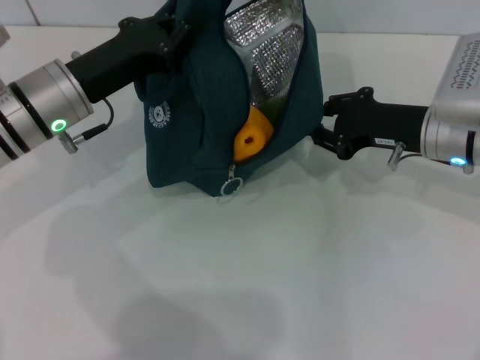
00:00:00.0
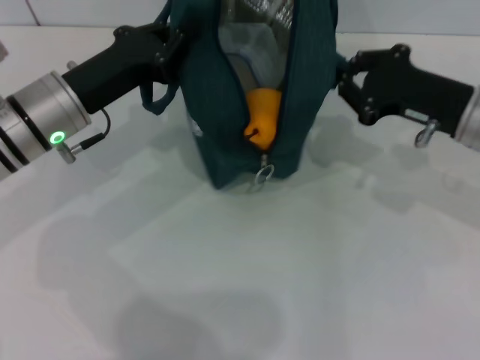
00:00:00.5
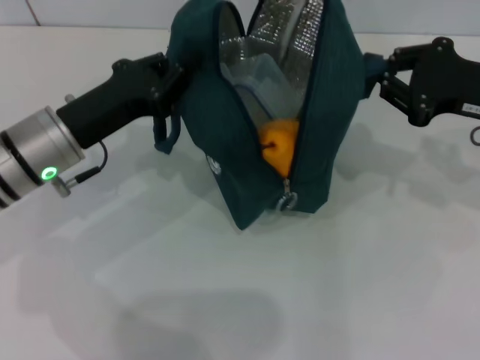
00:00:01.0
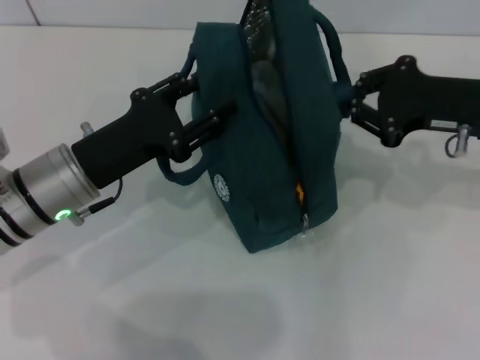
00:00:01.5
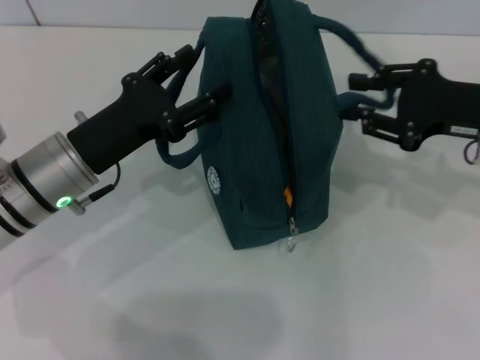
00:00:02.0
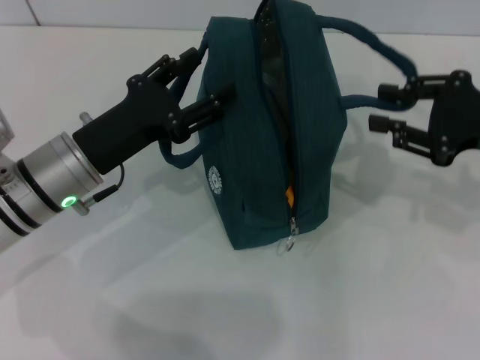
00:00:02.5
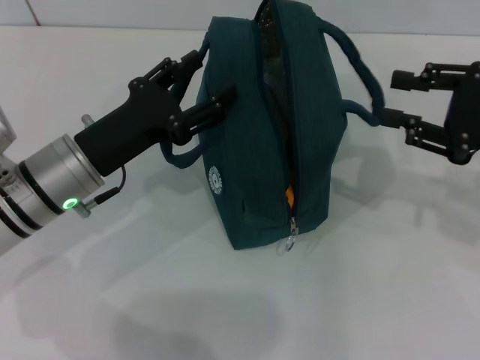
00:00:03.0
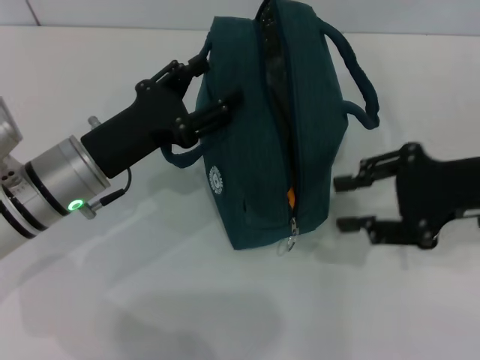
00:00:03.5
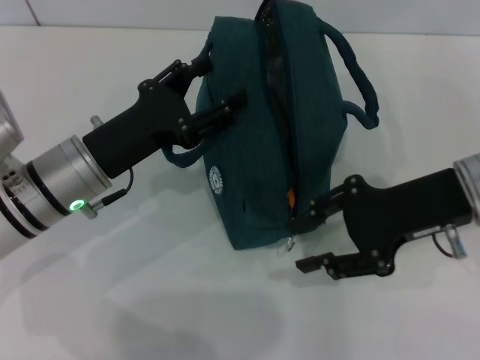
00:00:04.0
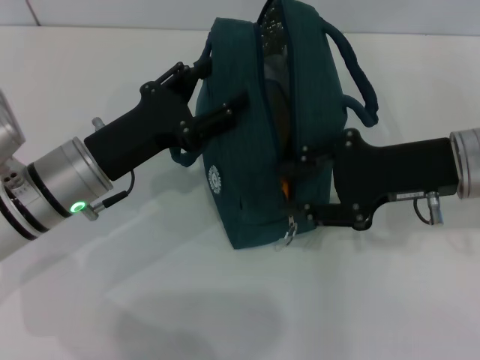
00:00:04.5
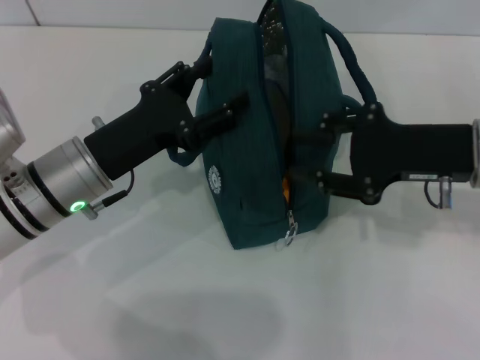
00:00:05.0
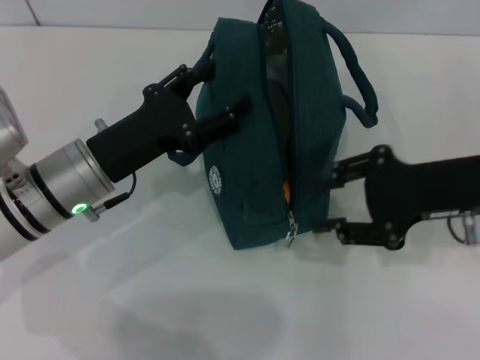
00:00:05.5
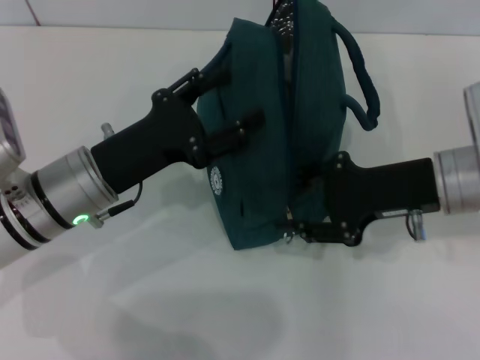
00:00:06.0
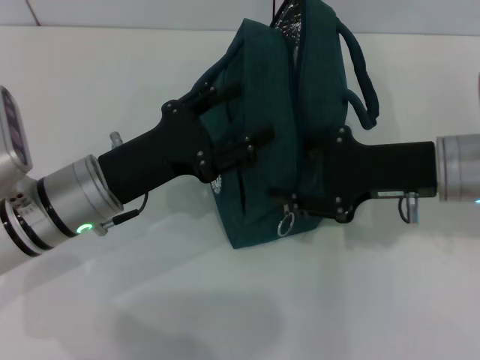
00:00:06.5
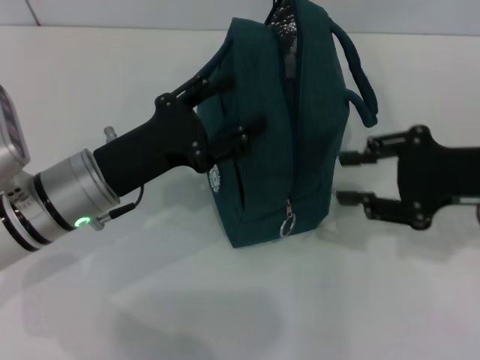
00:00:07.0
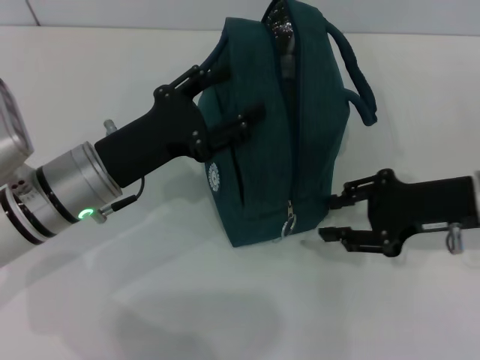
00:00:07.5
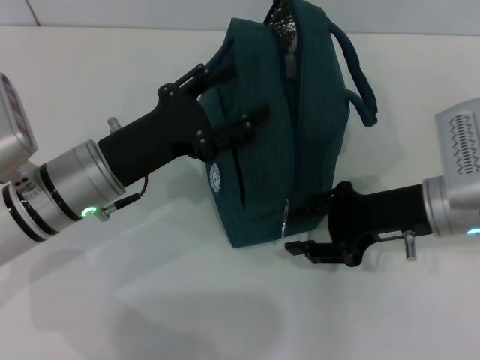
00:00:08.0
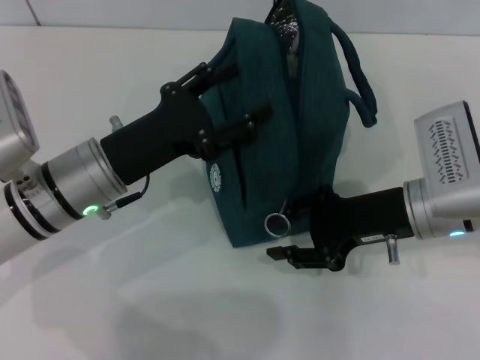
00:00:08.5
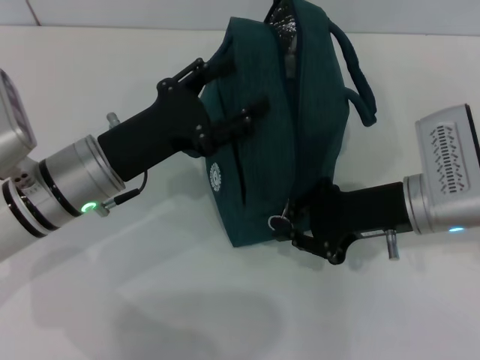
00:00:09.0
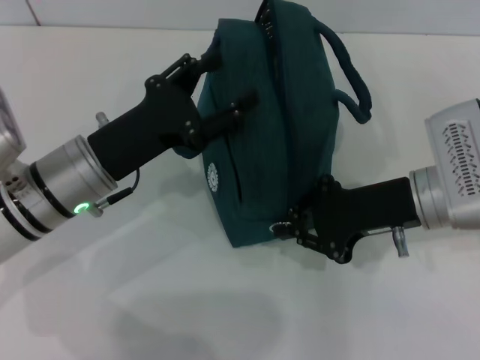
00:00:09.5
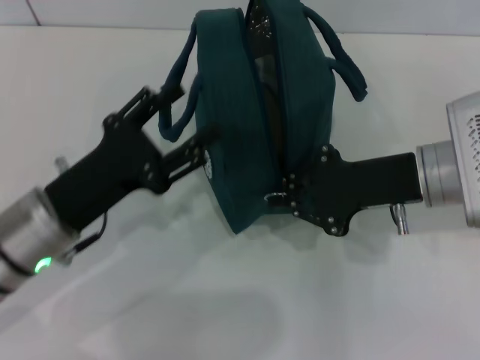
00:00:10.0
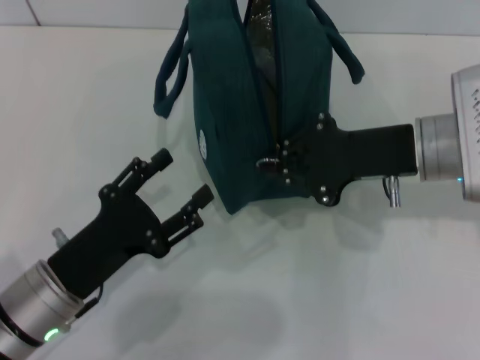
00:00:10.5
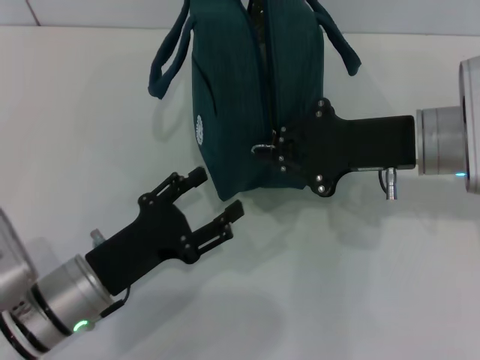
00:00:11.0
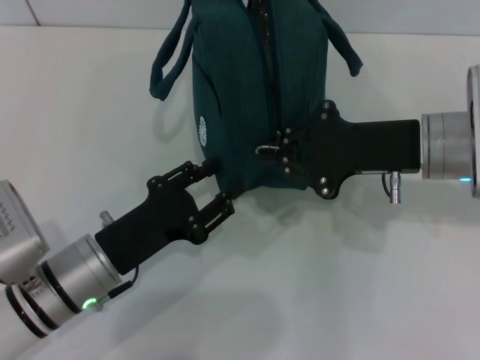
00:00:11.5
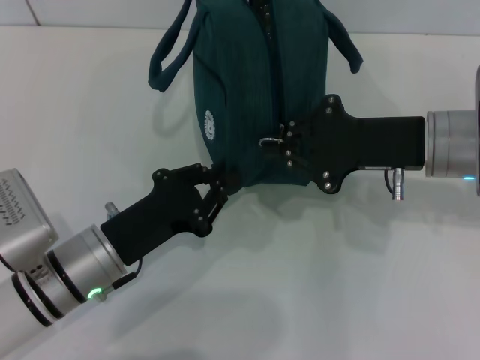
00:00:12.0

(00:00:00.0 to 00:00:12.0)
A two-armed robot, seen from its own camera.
Step, 00:00:00.0 - 00:00:02.0: Hold the lunch bag with your left hand.
00:00:00.0 - 00:00:02.0: The left gripper heads backward, covering roughly 5 cm, and opens; the right gripper travels to the right by approximately 5 cm.
00:00:02.0 - 00:00:04.0: The right gripper travels to the left by about 5 cm.
00:00:08.0 - 00:00:10.0: The right gripper closes; the left gripper moves approximately 5 cm.
00:00:10.0 - 00:00:12.0: The left gripper shifts by about 5 cm, and closes.

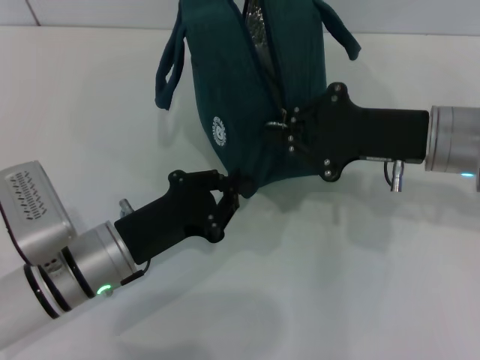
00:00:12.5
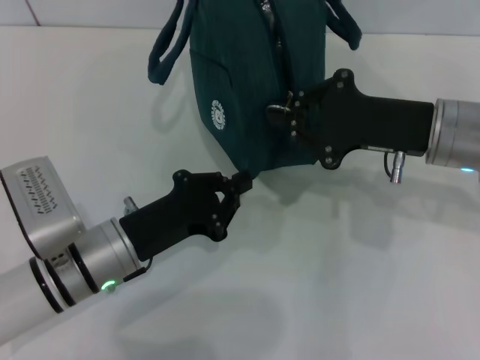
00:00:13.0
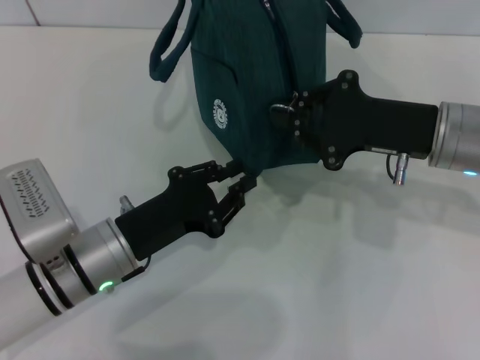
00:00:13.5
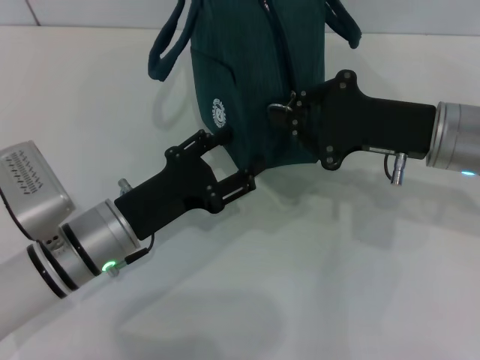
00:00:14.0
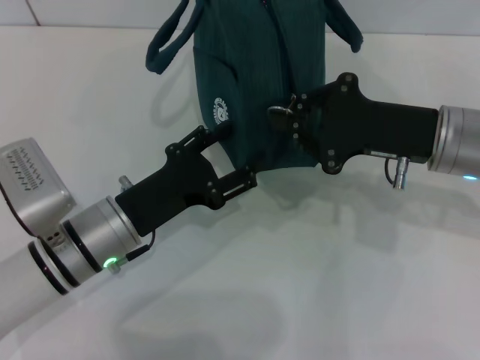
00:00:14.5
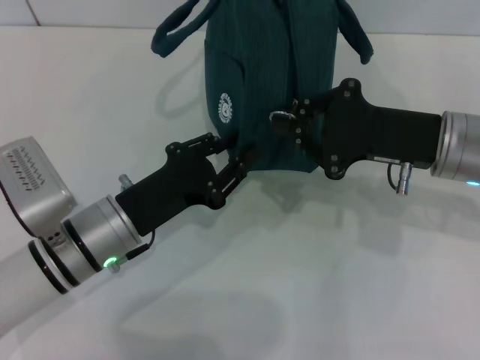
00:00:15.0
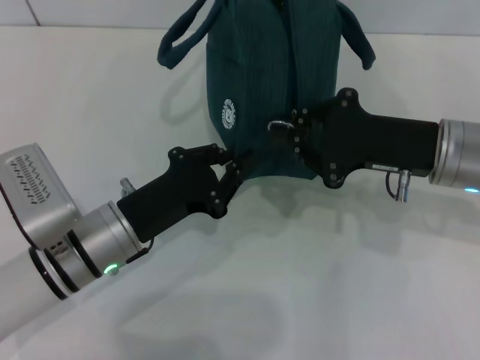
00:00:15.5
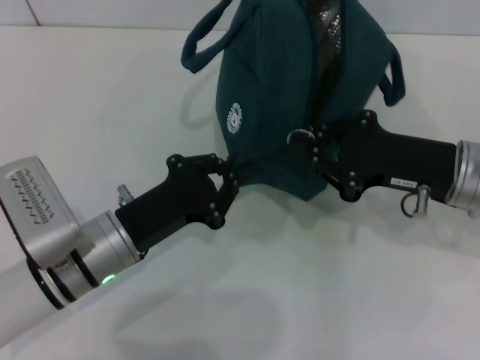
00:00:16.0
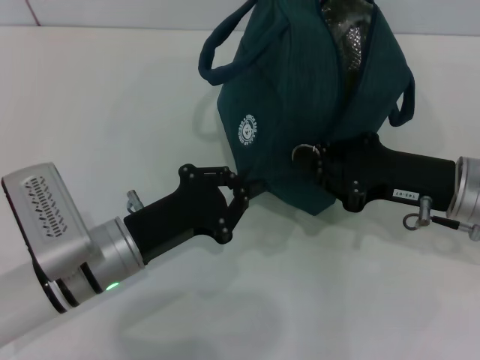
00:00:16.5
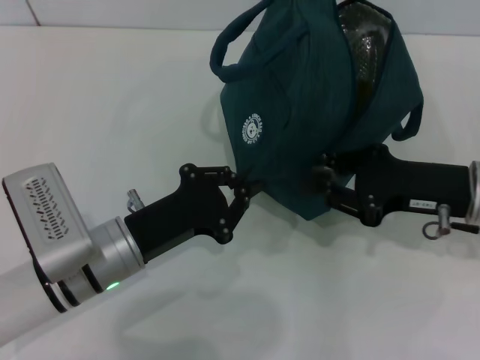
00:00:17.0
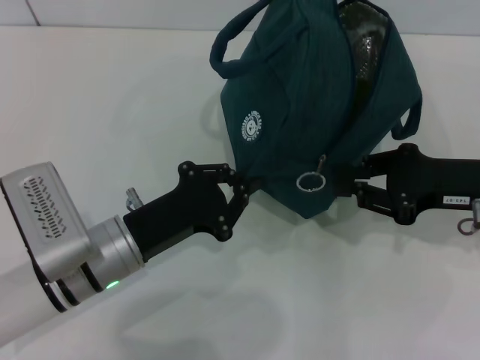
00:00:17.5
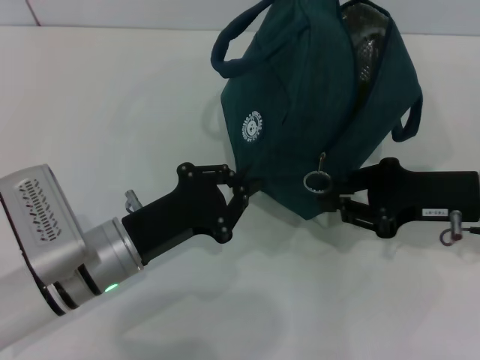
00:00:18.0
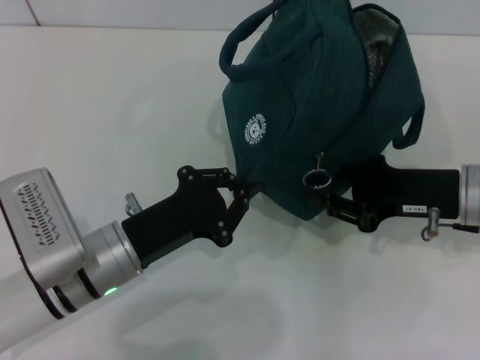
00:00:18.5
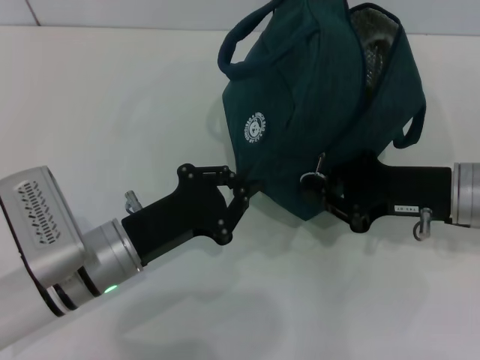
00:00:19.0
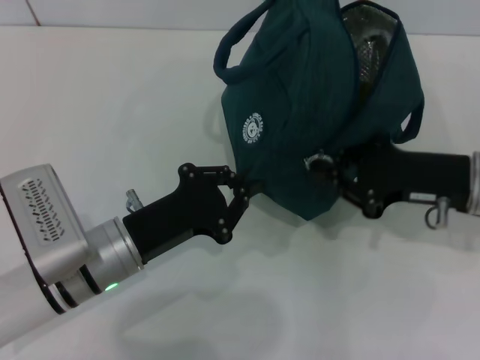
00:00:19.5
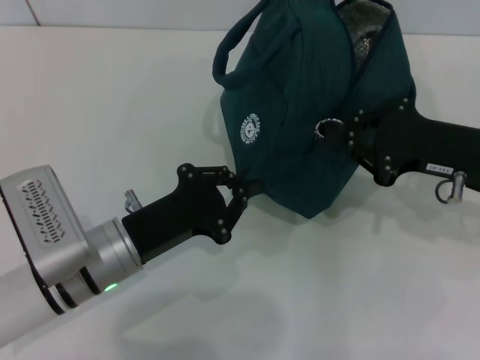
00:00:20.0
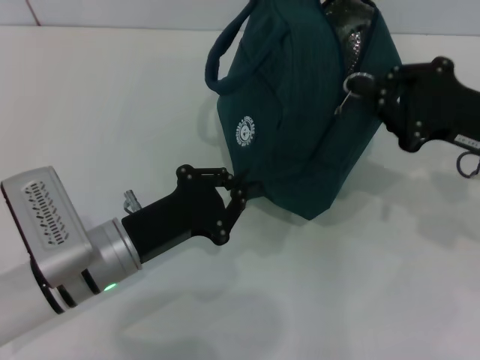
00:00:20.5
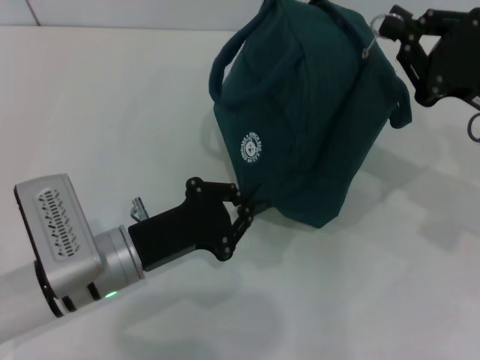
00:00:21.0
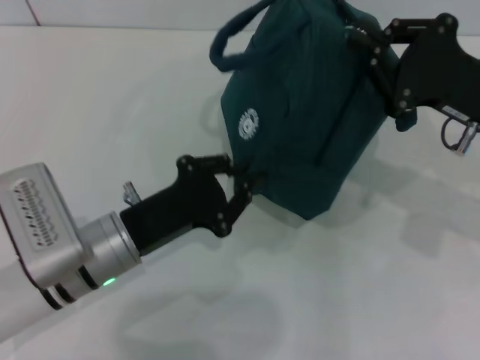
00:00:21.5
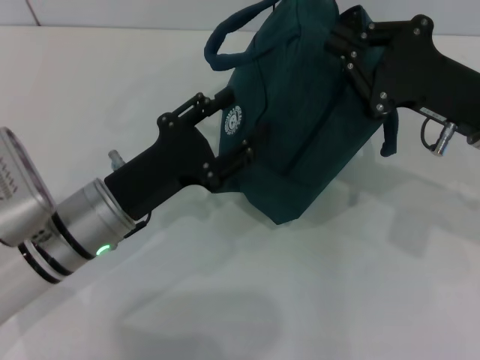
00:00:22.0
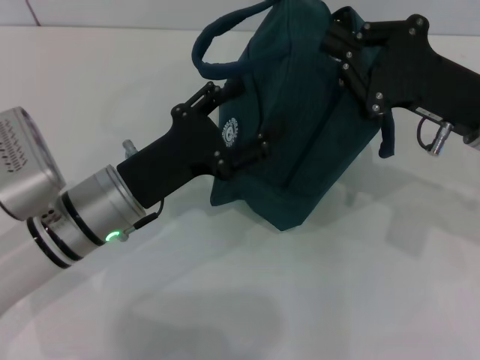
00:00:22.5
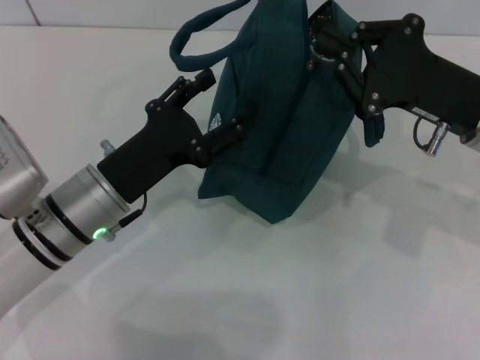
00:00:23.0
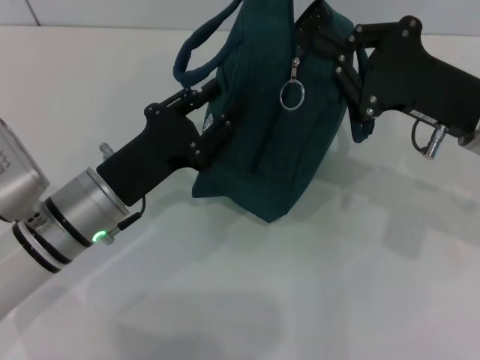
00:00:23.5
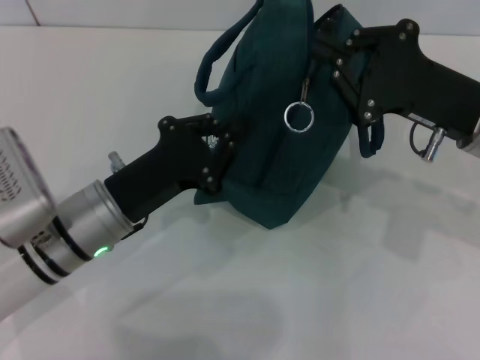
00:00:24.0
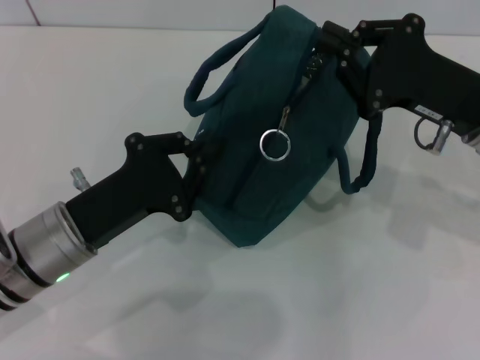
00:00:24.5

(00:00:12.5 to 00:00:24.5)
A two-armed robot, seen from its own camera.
00:00:12.5 - 00:00:14.5: The left gripper opens.
00:00:14.5 - 00:00:16.5: The left gripper closes. Meanwhile the right gripper ends up some 5 cm from where it was.
00:00:16.5 - 00:00:18.5: There are only small adjustments of the grippers.
00:00:20.5 - 00:00:22.5: The left gripper opens.
00:00:22.5 - 00:00:24.5: The left gripper ends up approximately 5 cm from where it was, and closes its fingers.

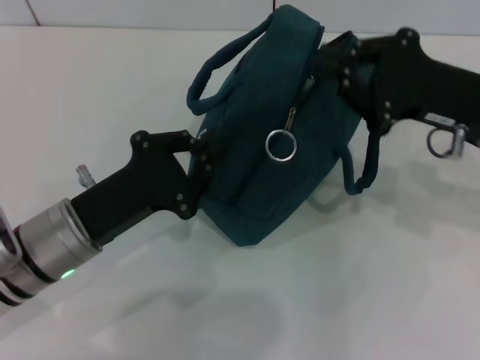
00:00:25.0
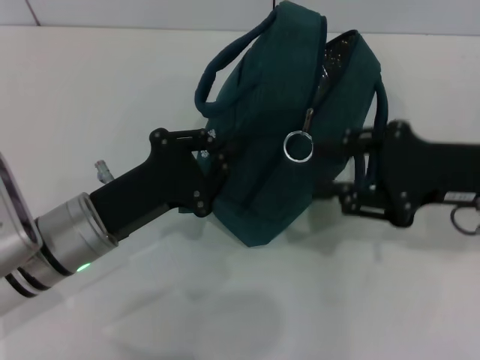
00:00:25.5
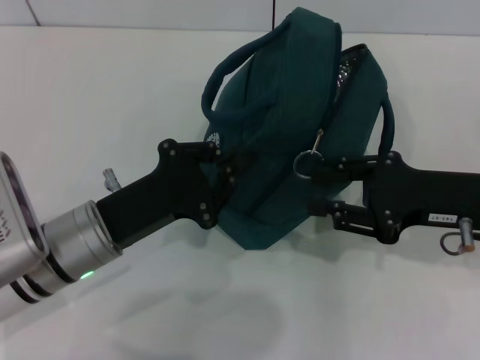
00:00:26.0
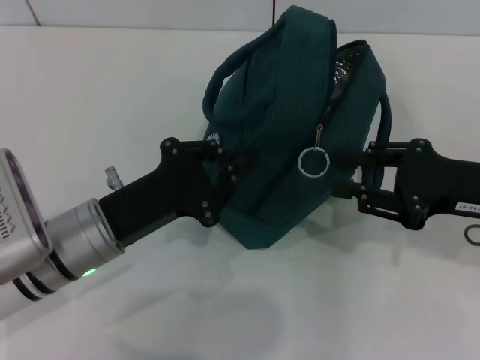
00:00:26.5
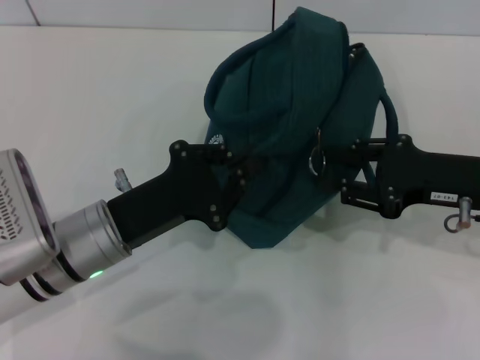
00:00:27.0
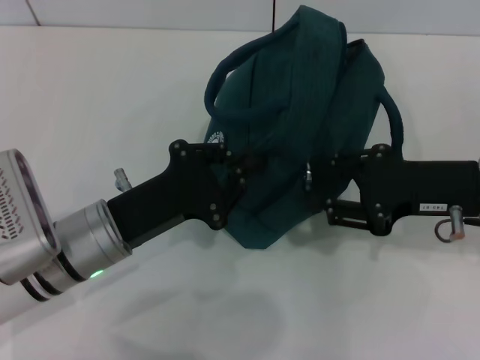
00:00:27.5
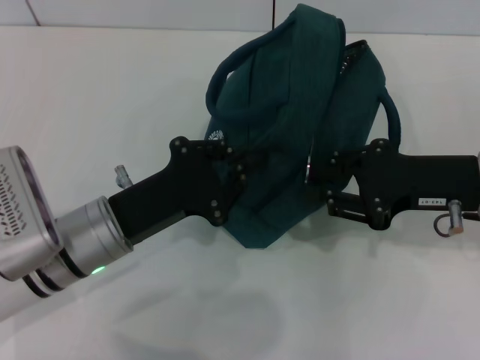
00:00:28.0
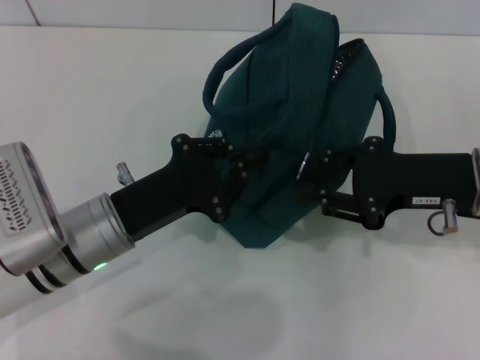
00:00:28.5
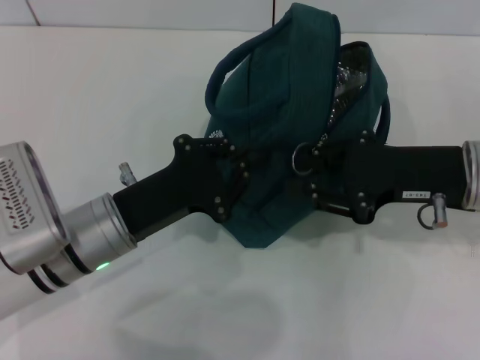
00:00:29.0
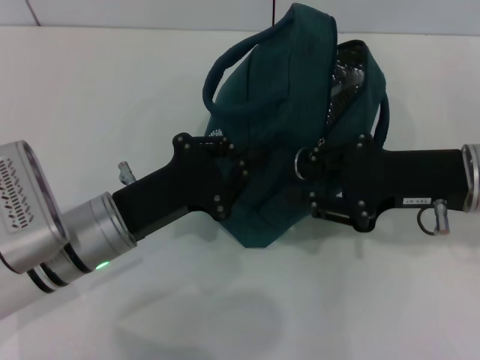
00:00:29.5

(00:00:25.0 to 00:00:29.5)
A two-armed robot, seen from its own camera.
00:00:25.0 - 00:00:27.0: The right gripper moves approximately 5 cm, and opens up.
00:00:27.0 - 00:00:29.5: The grippers make only small movements.
